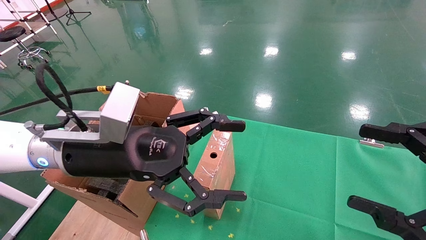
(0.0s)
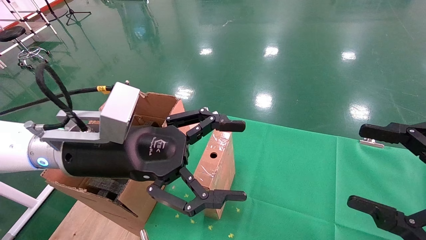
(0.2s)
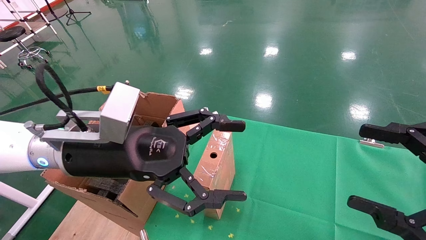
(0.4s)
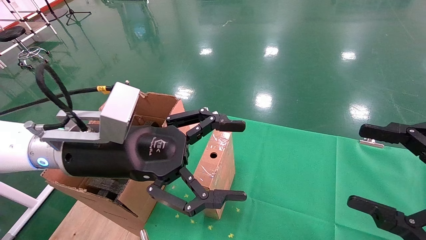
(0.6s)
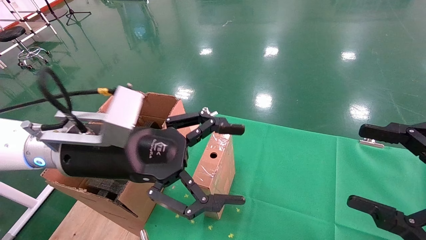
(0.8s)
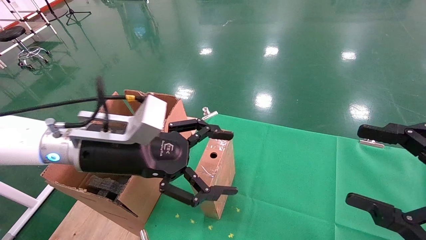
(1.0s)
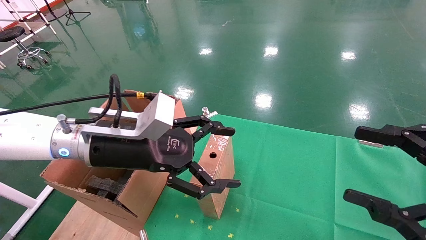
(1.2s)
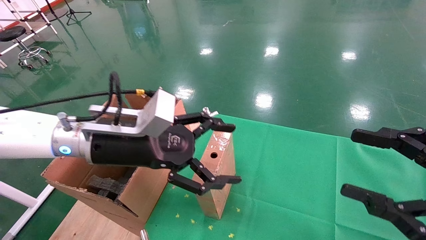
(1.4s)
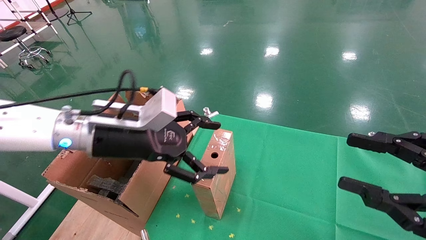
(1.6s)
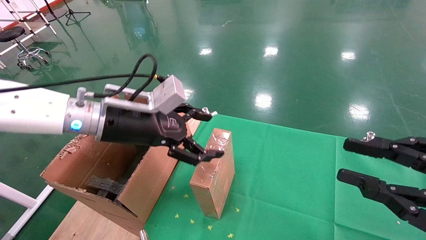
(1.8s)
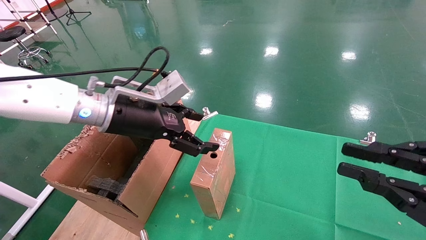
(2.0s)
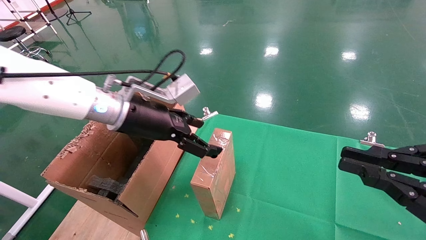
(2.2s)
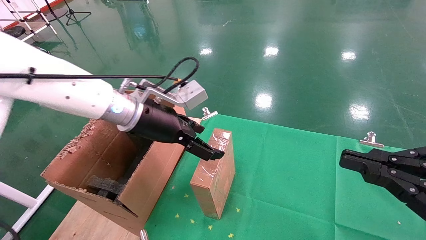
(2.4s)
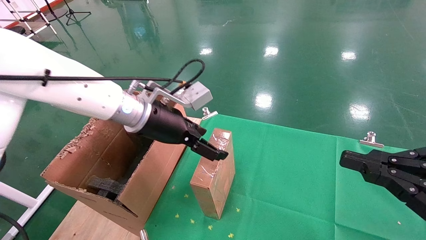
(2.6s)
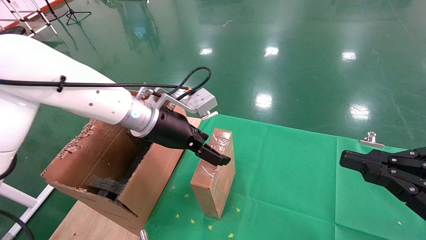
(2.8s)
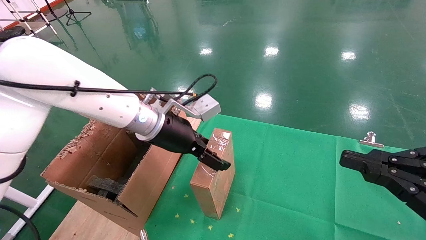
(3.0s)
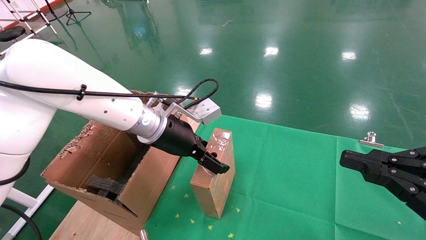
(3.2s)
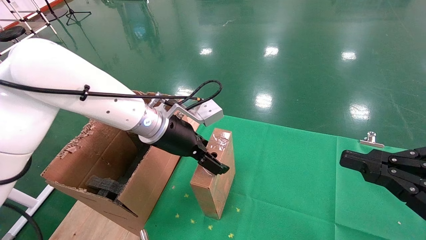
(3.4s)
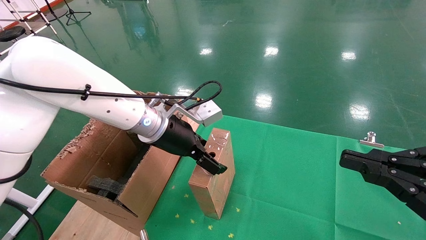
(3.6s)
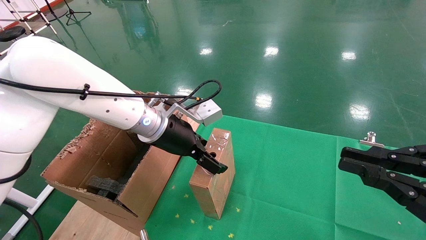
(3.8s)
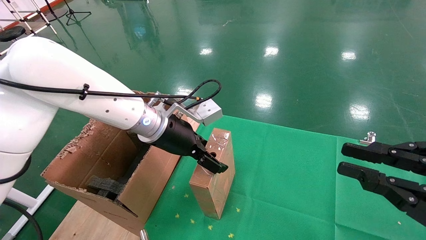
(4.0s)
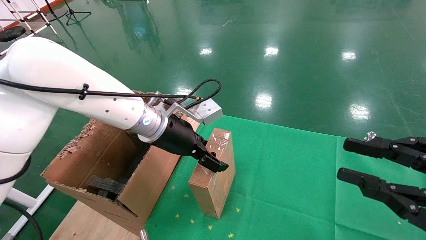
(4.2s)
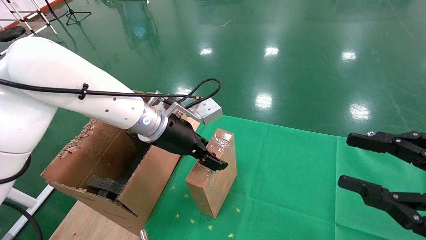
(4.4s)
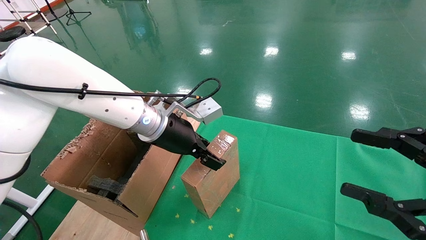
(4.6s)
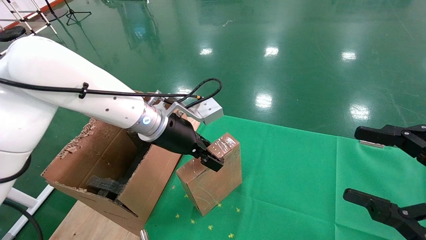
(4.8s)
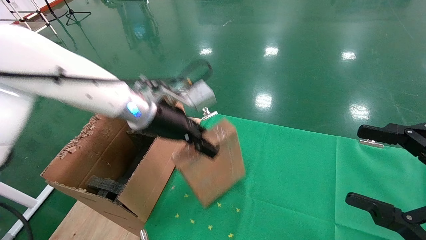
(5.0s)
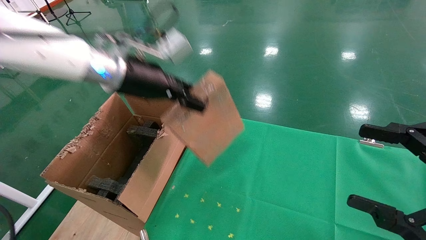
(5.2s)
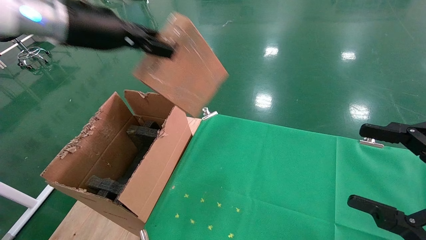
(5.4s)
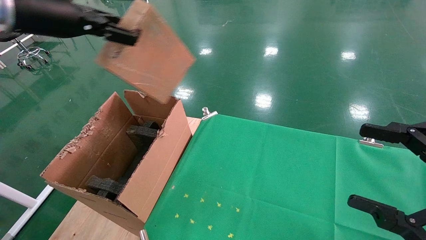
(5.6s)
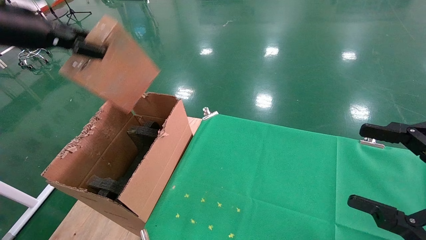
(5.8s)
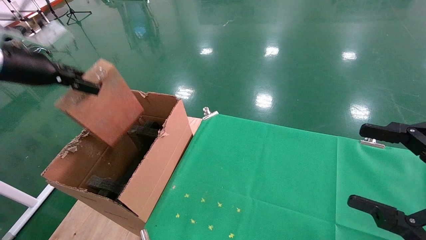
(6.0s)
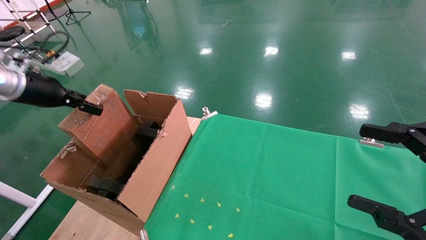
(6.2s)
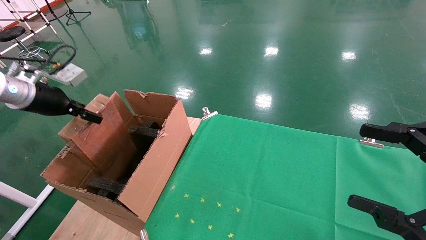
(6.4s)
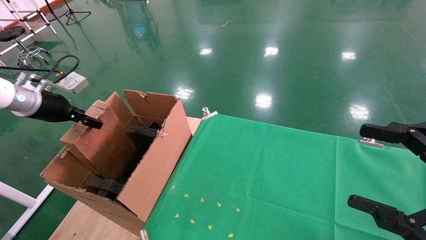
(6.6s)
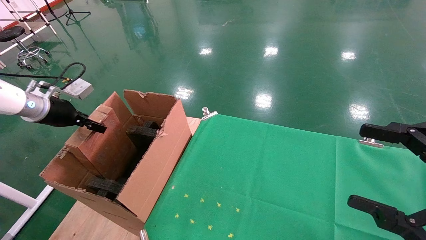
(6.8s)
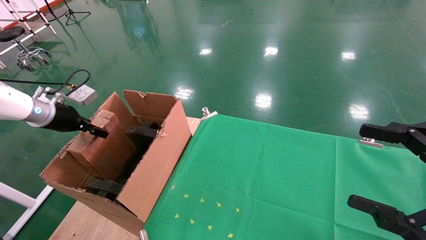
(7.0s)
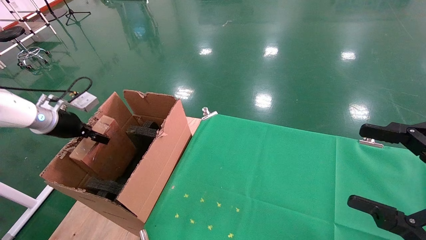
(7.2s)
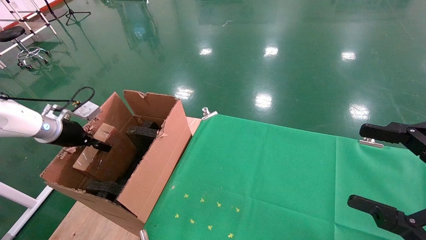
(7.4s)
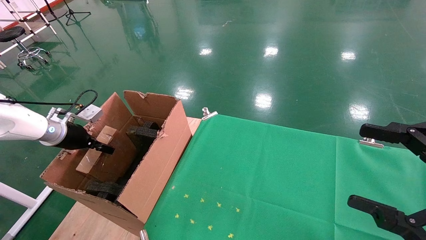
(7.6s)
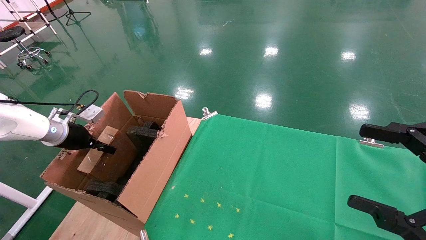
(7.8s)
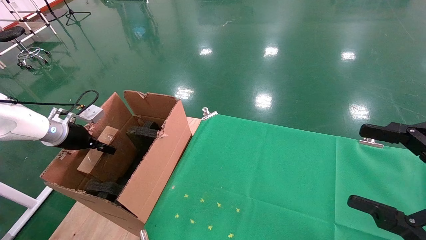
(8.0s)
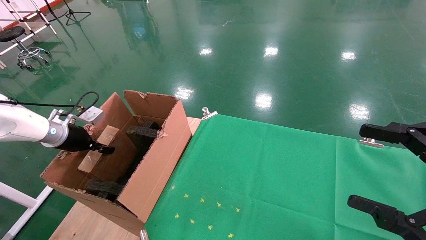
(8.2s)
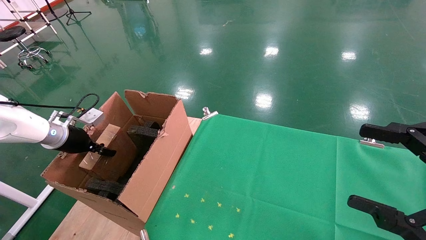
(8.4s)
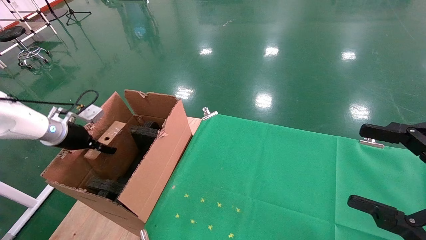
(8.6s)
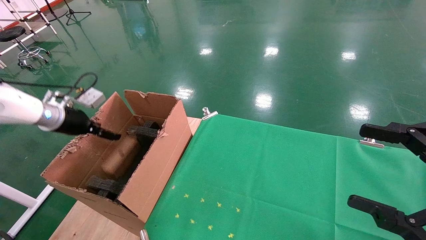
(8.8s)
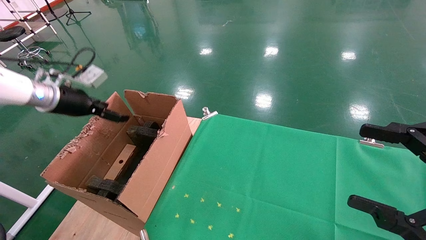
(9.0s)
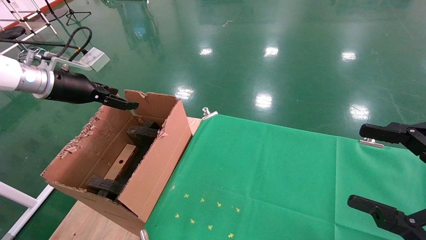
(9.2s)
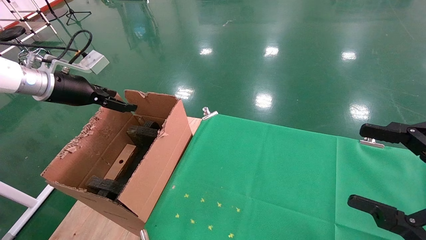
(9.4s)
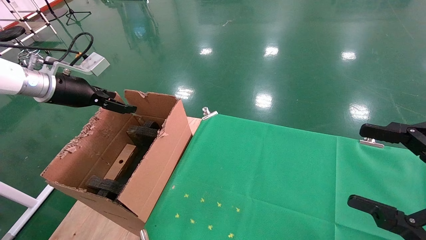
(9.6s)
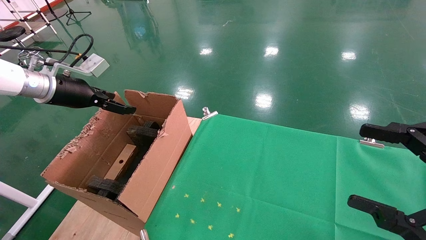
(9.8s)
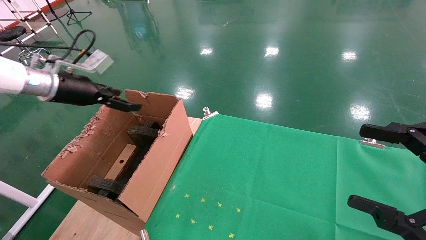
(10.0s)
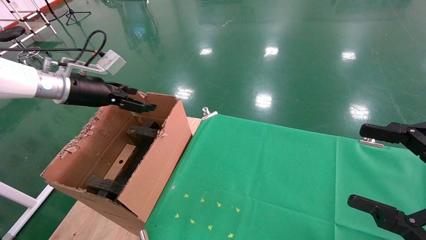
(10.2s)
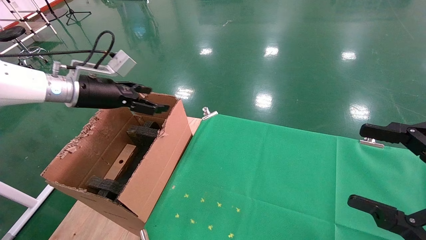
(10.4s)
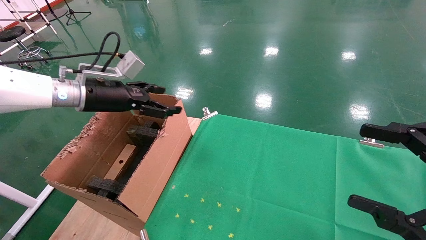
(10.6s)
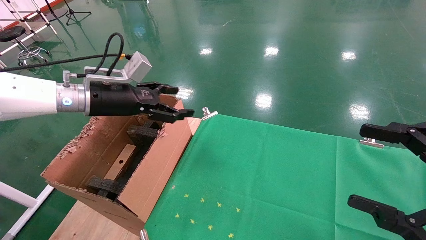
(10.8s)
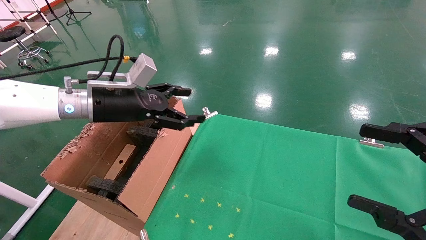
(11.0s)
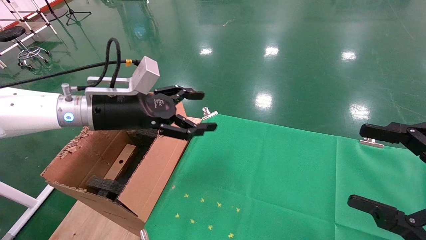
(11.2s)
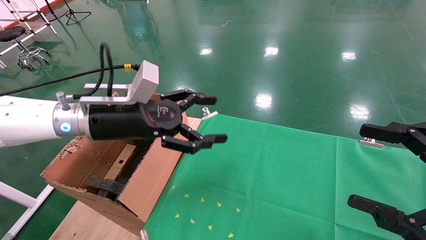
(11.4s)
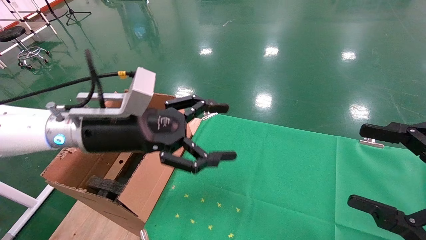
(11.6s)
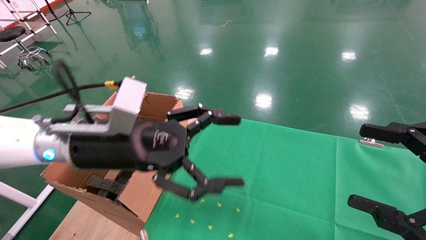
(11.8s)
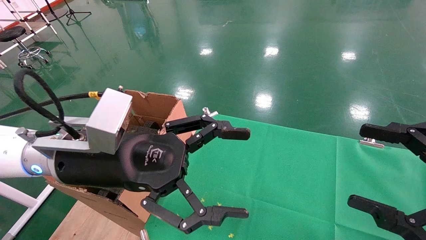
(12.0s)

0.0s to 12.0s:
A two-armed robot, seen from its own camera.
Task of the whole recording: using a robotic arm to pick up a cardboard box and palace it the carton.
Step, 1.0s to 4.8s: Pick up the mouse and the power cord paper box.
Step, 5.0s to 8.6s: Place the mouse and the power cord paper box into the container.
0.0s to 1.6s: The right gripper closes its fingers. Meanwhile the left gripper travels forward by about 5 cm.
1.6s to 3.0s: The left gripper goes roughly 10 cm forward and to the right. Meanwhile the right gripper closes up.
3.0s to 4.4s: The right gripper opens up.
4.4s to 6.0s: The left gripper moves to the left and upward, roughly 30 cm, and closes, while the right gripper opens up.
6.0s to 7.6s: The left gripper goes some 20 cm downward.
7.6s to 9.0s: The left gripper goes some 10 cm upward, and opens its fingers.
9.0s to 10.4s: The left gripper heads to the right, covering roughly 10 cm.
10.4s to 12.0s: The left gripper goes some 25 cm to the right and backward.

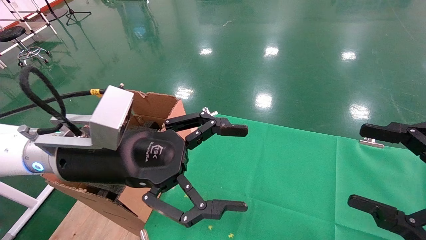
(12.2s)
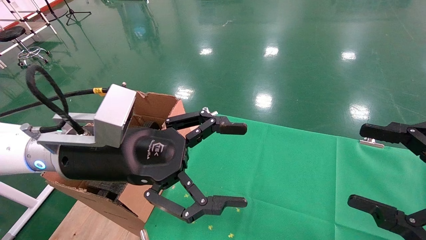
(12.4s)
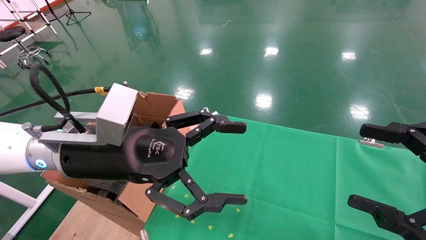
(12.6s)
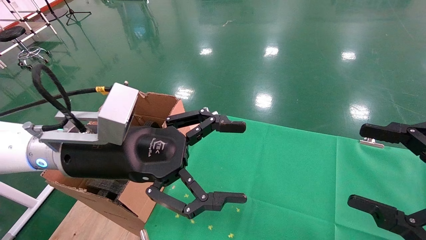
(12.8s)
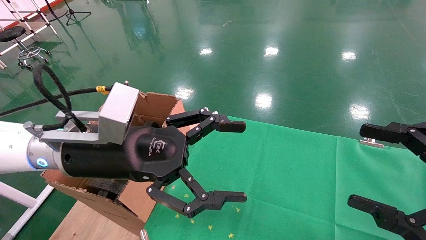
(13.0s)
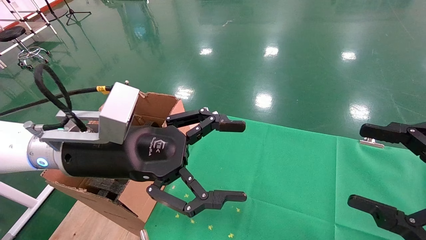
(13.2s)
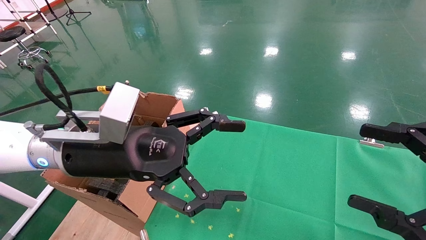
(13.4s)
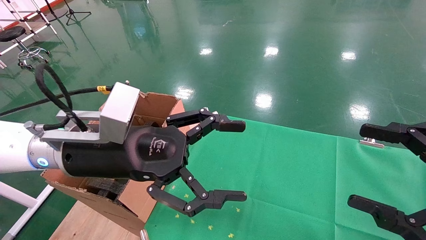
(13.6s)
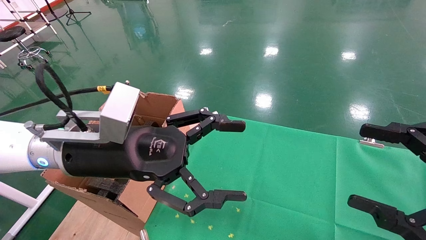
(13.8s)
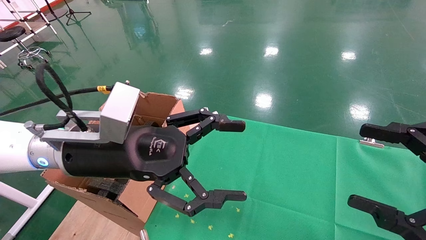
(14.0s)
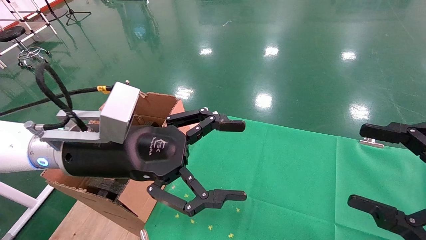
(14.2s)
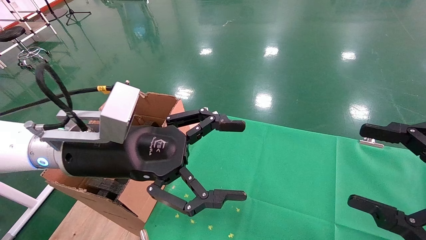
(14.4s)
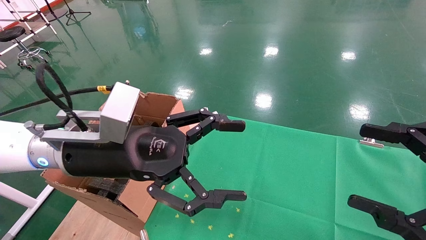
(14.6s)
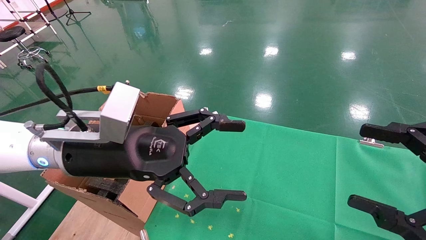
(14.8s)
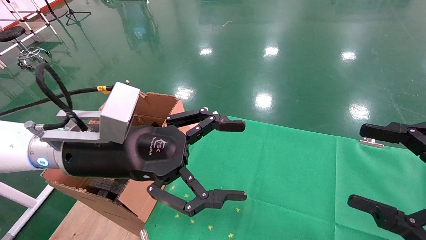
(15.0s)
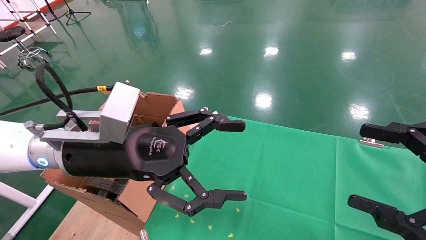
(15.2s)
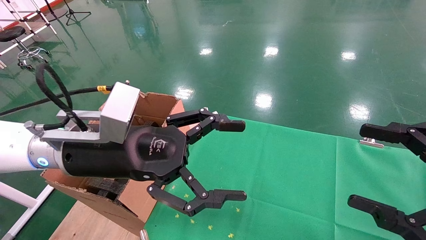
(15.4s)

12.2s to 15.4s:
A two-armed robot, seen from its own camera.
Task of the whole recording: using a robotic arm to pick up a cardboard box and palace it the carton.
12.2s to 15.4s: The two grippers keep their place.
